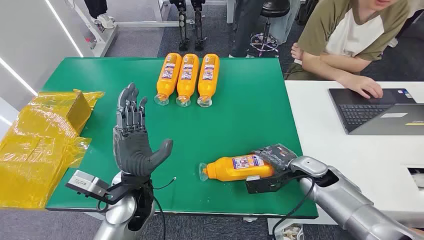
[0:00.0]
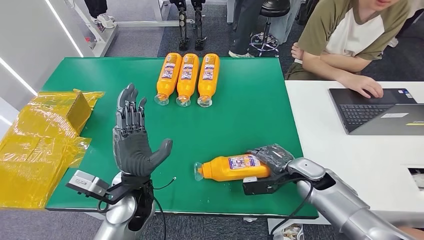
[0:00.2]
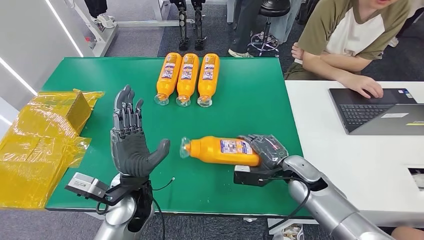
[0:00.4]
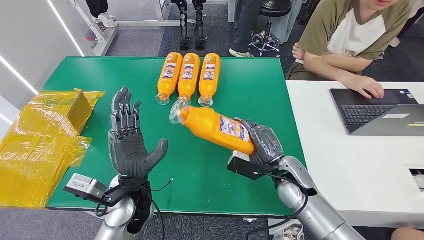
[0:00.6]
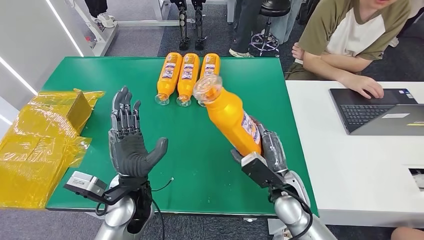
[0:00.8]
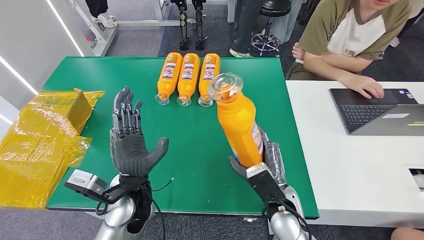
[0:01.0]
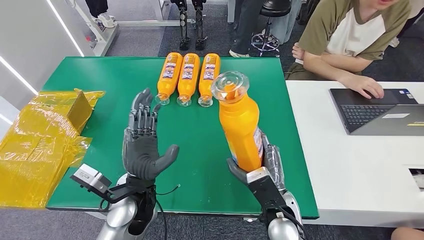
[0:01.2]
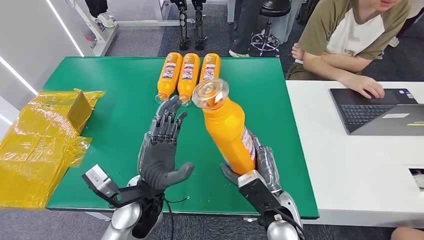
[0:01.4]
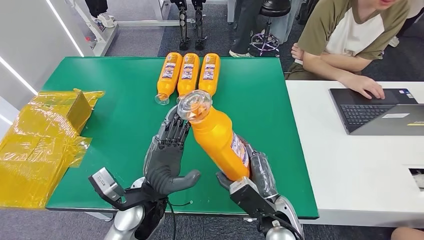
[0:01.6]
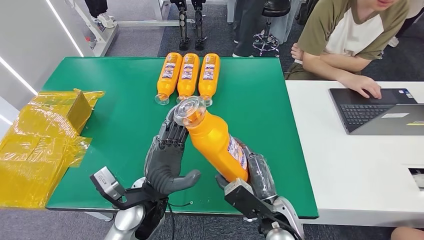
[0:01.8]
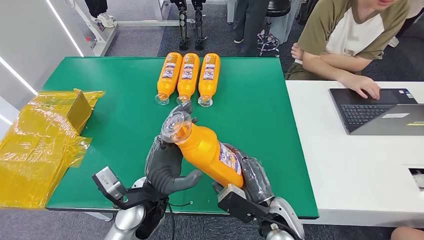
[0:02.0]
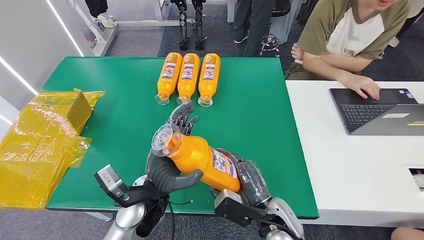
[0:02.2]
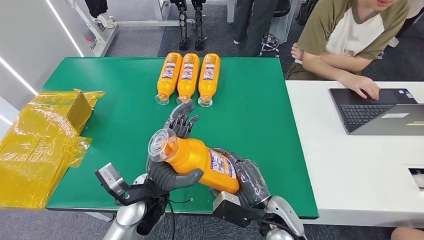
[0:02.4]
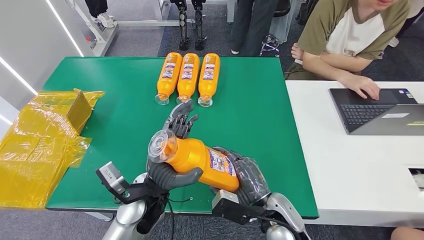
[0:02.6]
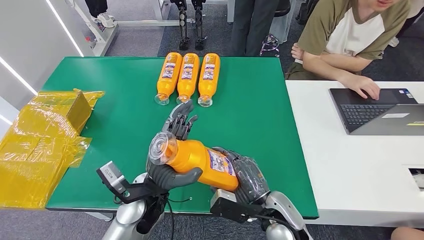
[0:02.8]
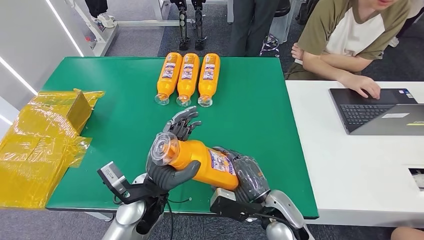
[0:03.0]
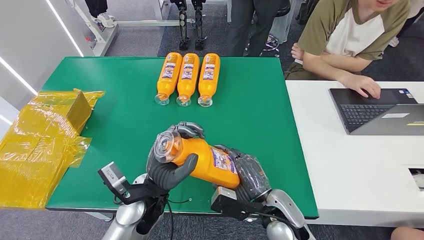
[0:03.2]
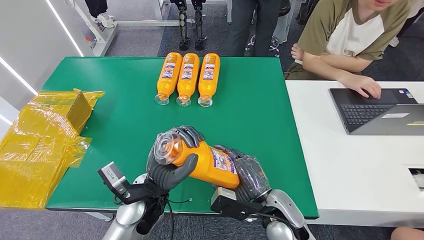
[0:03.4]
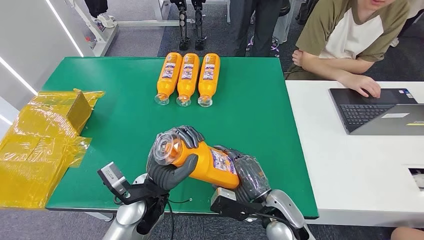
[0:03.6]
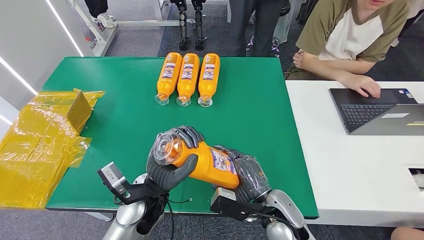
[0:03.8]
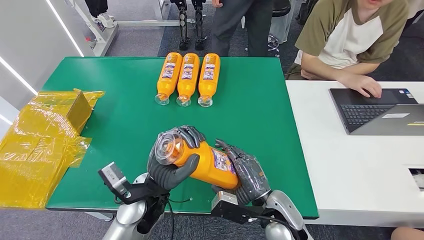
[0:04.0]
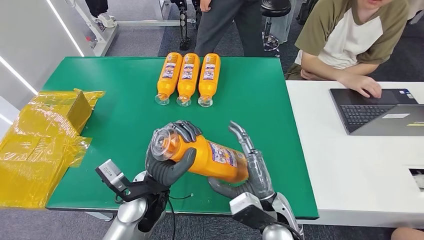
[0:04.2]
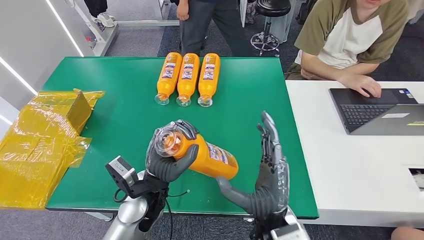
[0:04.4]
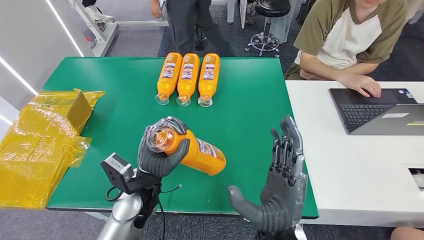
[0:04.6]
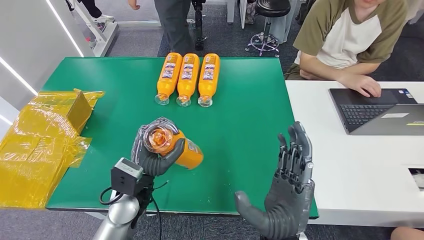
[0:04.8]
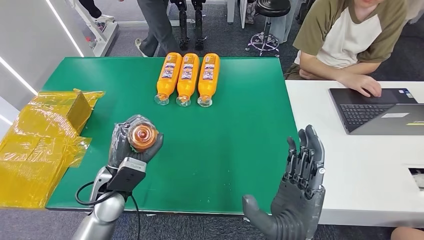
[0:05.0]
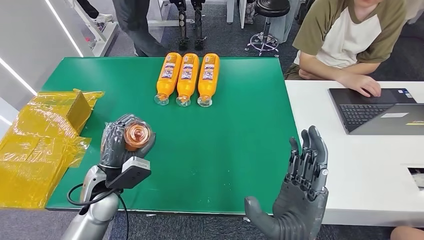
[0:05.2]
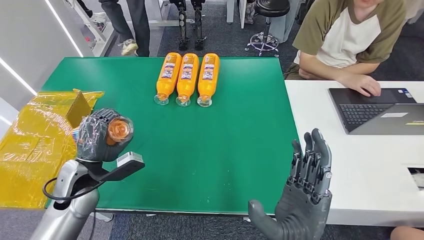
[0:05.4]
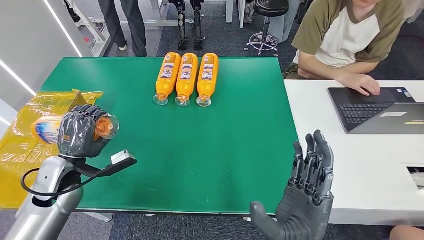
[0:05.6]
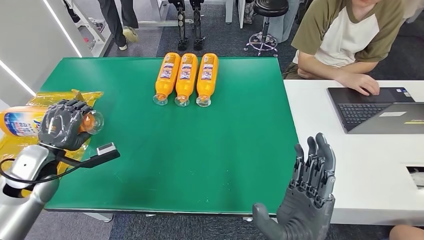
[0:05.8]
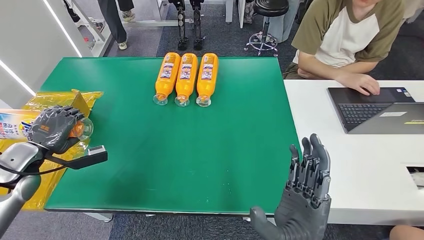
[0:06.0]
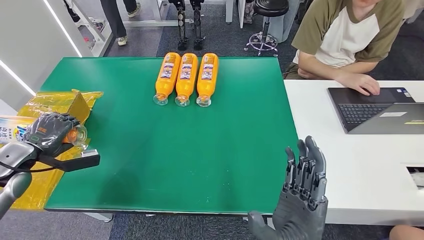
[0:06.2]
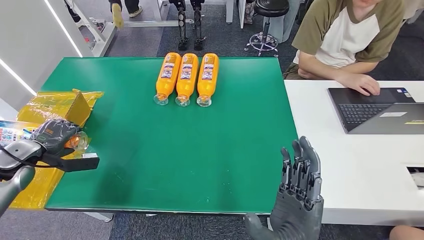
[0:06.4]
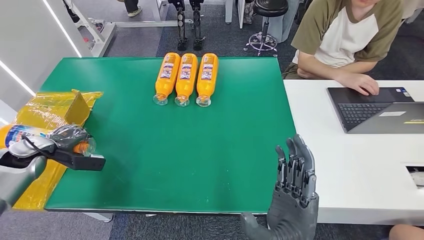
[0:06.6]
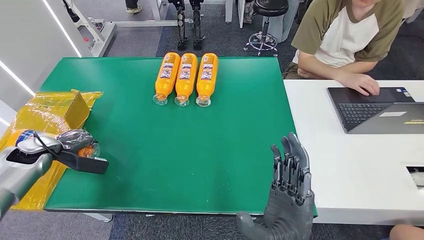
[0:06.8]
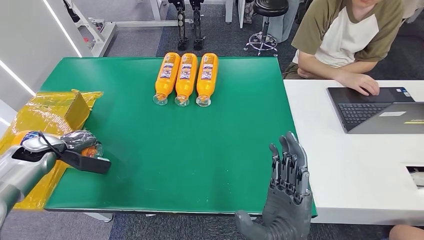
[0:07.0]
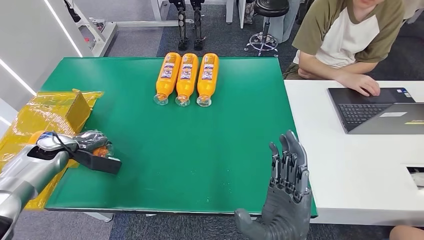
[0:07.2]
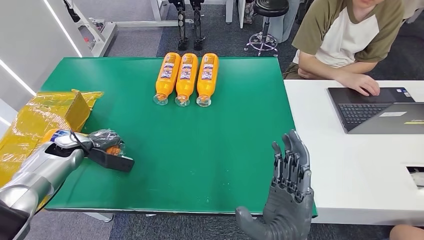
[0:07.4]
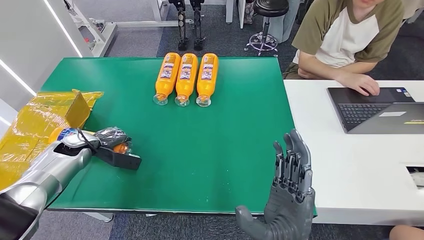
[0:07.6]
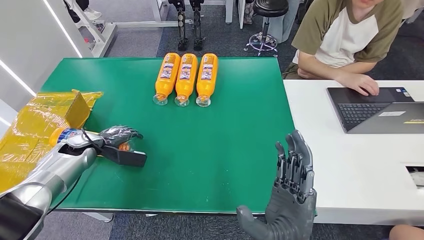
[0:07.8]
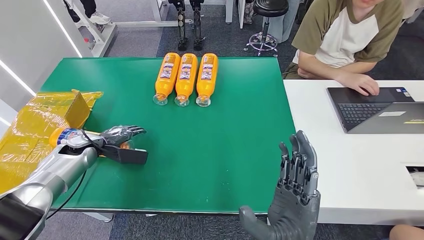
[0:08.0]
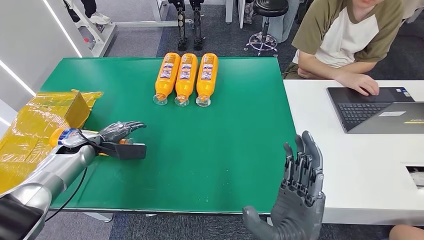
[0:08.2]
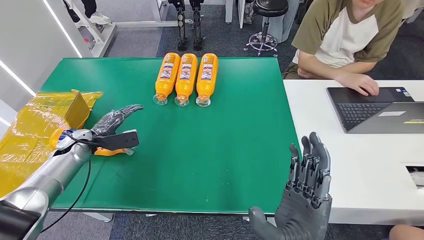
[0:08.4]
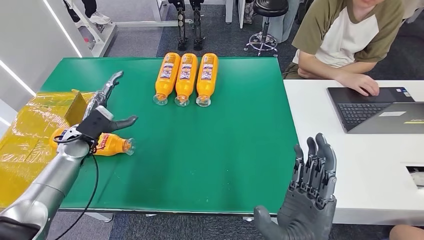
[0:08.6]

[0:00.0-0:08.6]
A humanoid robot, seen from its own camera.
Step, 0:00.0 to 0:02.4: Pick up the bottle from the table.
Step, 0:02.6 to 0:08.4: Turn the bottle to the front side.
0:02.8 to 0:04.4: The right hand shifts by roughly 5 cm.
0:05.8 to 0:07.2: The left hand heads to the left, forward and downward, covering some 10 cm.
0:07.2 to 0:08.6: The left hand moves to the right, roughly 10 cm.
